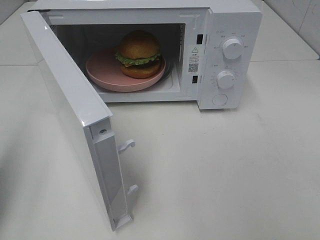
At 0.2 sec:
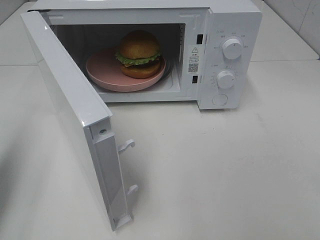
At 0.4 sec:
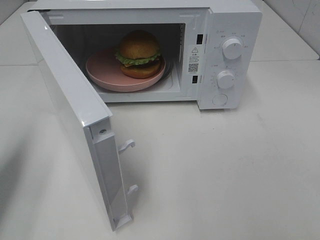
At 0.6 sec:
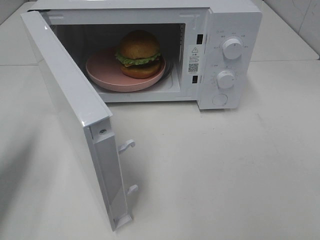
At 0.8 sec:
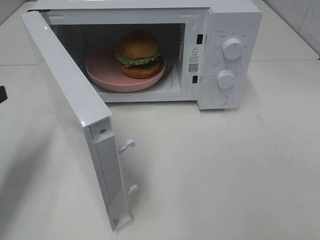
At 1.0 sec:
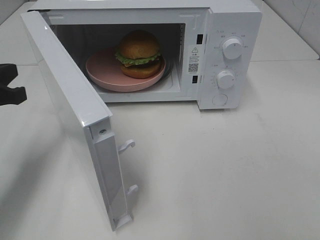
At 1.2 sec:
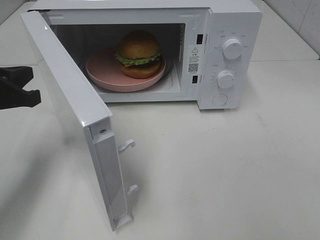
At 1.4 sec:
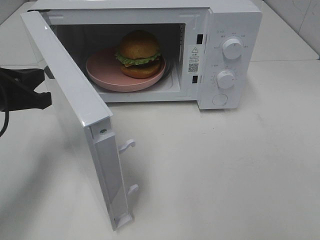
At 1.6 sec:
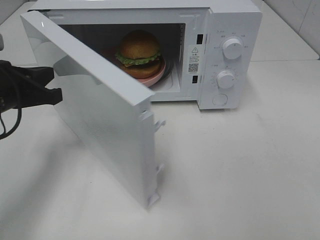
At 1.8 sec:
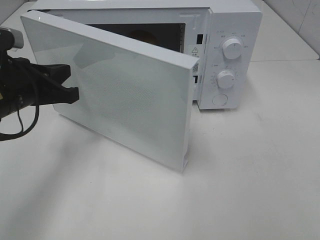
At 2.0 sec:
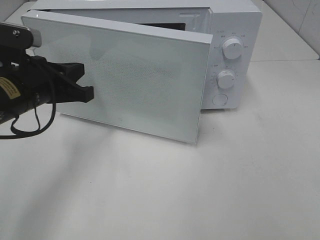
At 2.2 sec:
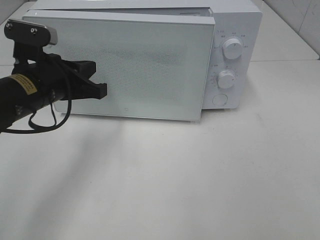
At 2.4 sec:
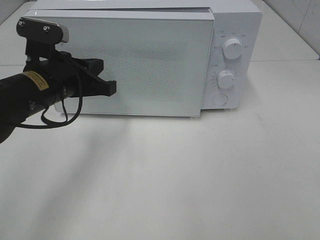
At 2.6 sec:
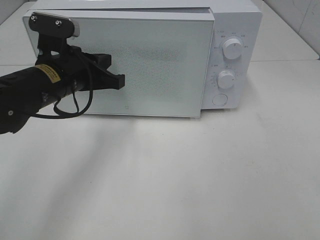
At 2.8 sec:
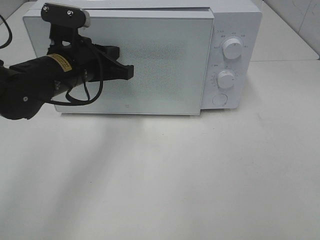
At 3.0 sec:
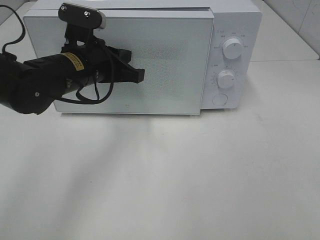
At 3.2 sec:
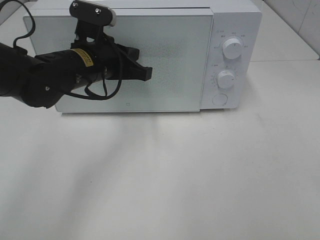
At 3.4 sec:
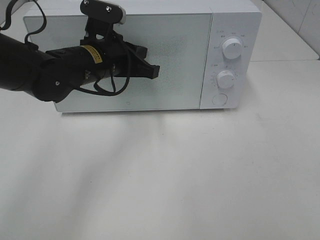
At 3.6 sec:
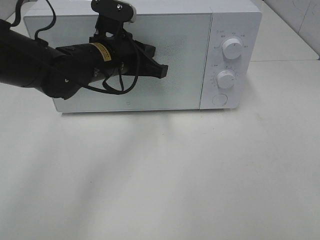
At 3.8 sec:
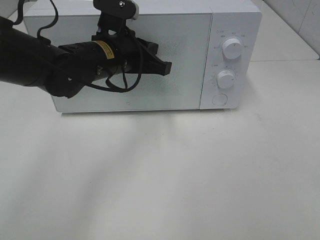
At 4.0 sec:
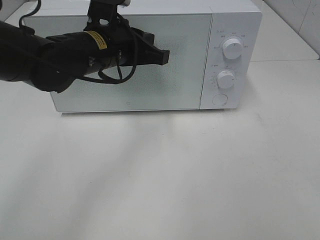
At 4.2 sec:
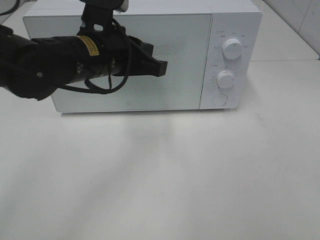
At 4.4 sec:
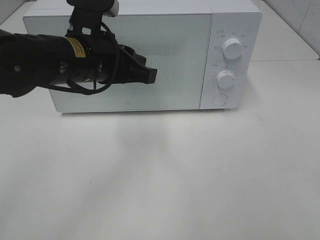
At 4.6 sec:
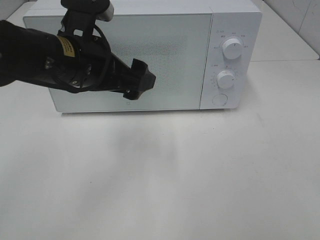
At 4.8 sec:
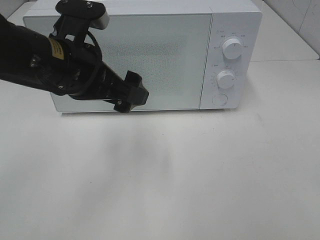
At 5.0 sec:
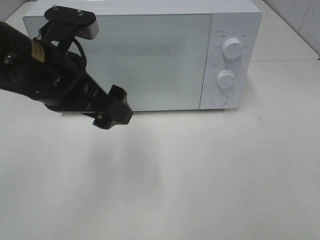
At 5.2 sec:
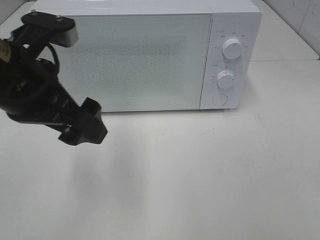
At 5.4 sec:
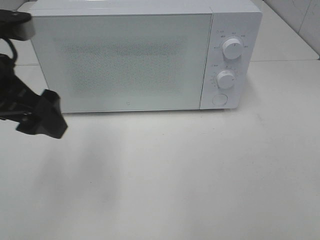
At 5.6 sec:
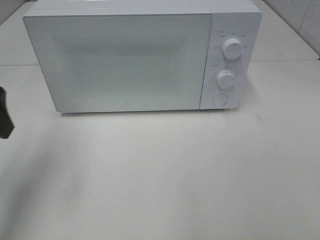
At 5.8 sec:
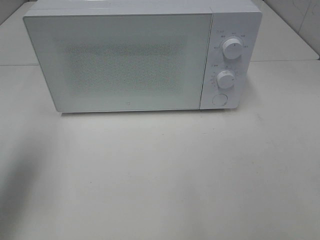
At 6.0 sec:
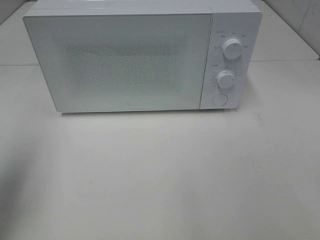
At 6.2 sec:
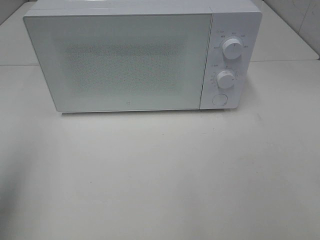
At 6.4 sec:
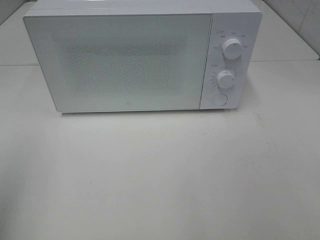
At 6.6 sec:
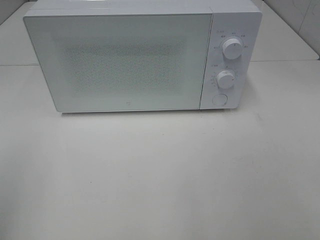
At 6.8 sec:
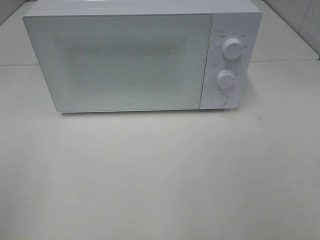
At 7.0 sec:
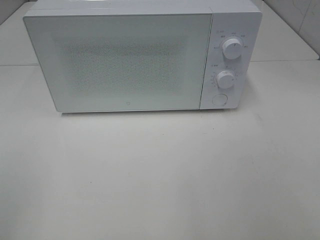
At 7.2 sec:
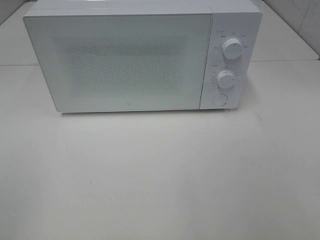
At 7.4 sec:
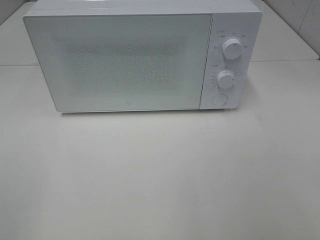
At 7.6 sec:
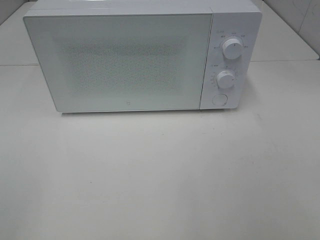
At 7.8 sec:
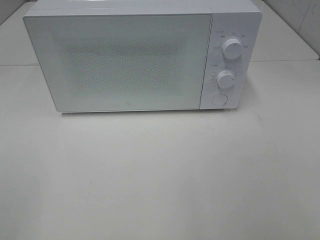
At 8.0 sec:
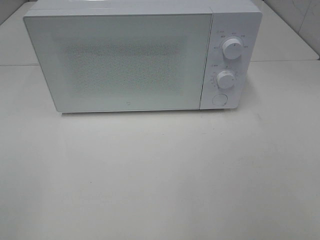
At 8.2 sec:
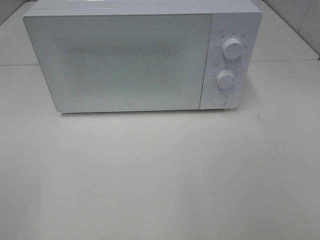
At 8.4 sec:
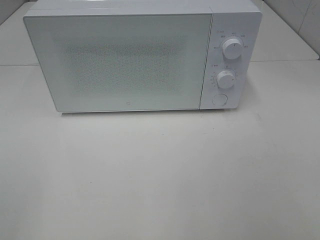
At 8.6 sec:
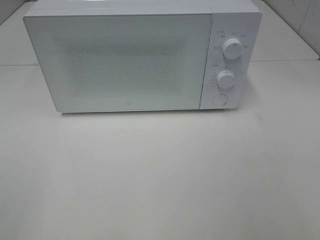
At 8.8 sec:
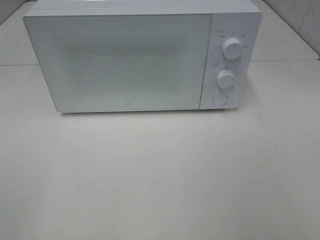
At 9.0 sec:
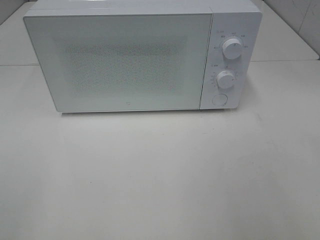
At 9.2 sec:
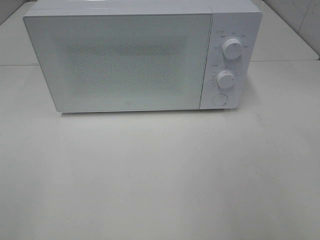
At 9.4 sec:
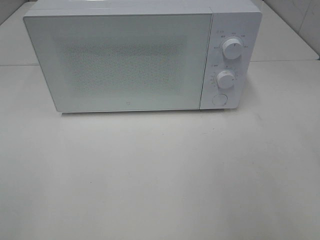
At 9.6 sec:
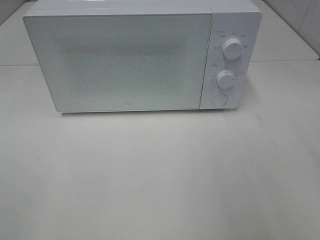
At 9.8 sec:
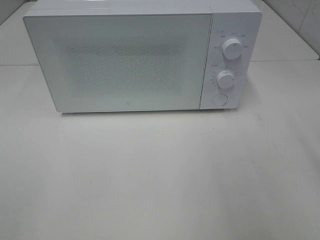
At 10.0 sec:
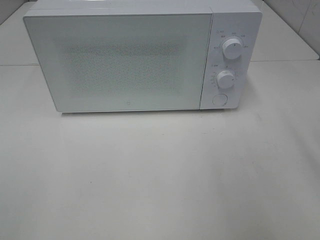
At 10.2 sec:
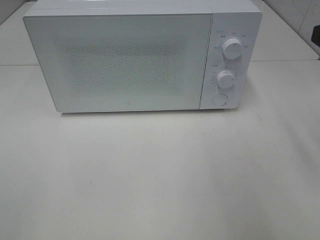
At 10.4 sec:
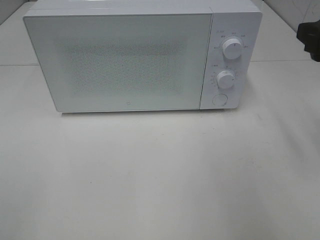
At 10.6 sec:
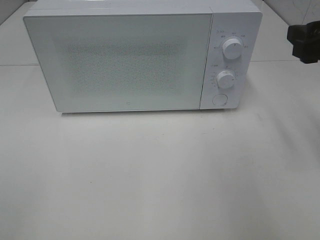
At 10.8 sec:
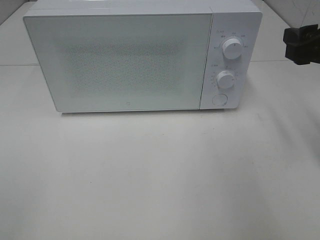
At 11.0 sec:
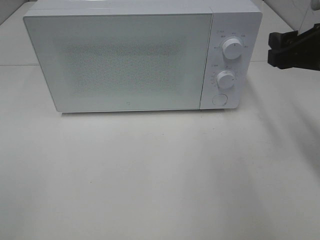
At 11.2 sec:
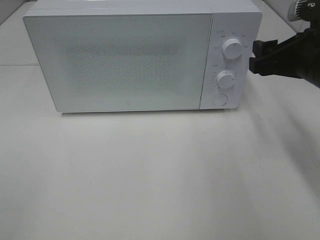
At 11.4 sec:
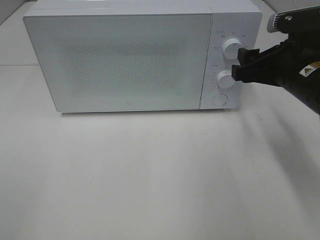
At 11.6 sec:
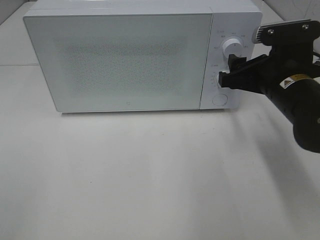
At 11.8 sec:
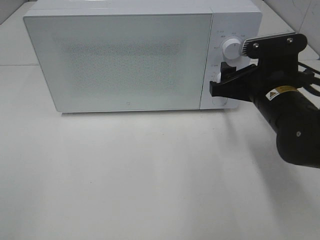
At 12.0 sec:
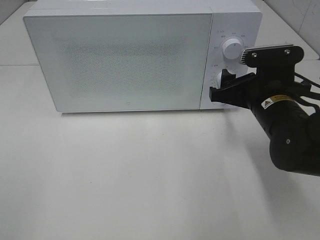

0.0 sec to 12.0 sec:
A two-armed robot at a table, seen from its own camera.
Task of the whole recording: Heat the burger.
Step, 0.0 sec to 4.0 sec: Left hand: close the microwave door.
0.0 sec to 1.6 sec: The left gripper travels forward, to the right and downward by about 15 cm.
1.6 sec to 3.0 sec: The left gripper goes roughly 15 cm to the right and forward.
3.0 sec to 4.4 sec: The left gripper moves roughly 5 cm.
4.4 sec to 6.0 sec: The left gripper heads to the left and backward, covering approximately 25 cm, and opens its fingers.
6.0 sec to 7.6 sec: The left gripper is displaced backward by some 20 cm.
9.0 sec to 10.4 sec: The right gripper moves forward, approximately 15 cm.
10.4 sec to 12.0 sec: The right gripper moves downward, to the left and forward, about 15 cm.

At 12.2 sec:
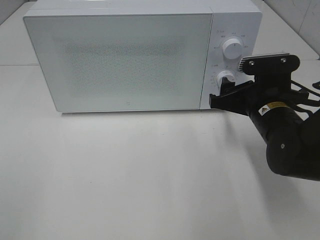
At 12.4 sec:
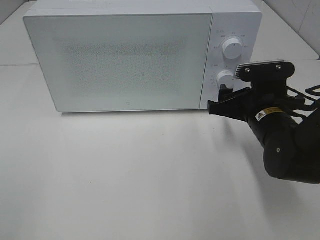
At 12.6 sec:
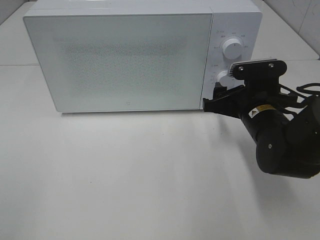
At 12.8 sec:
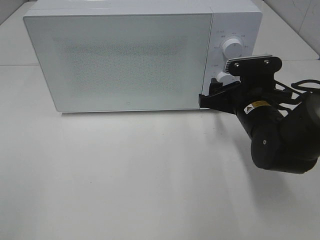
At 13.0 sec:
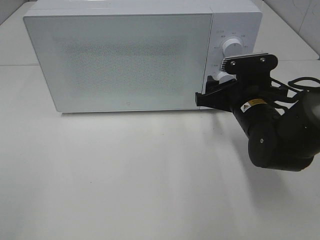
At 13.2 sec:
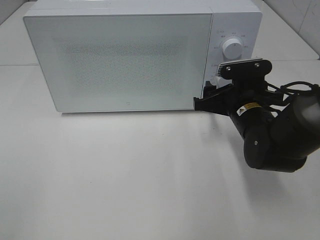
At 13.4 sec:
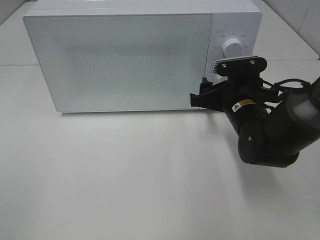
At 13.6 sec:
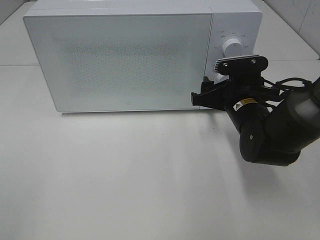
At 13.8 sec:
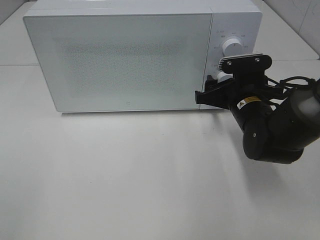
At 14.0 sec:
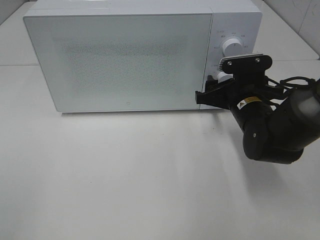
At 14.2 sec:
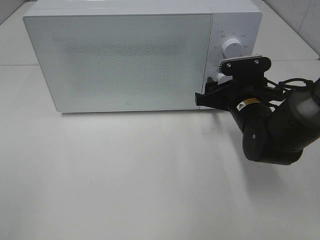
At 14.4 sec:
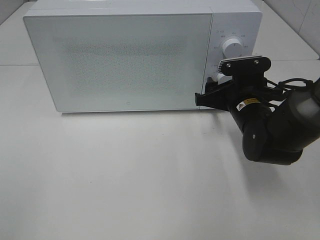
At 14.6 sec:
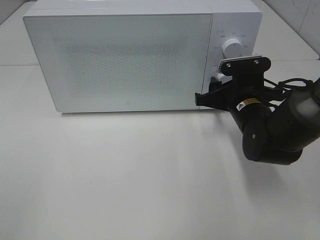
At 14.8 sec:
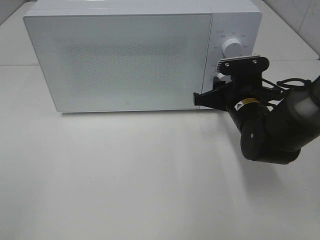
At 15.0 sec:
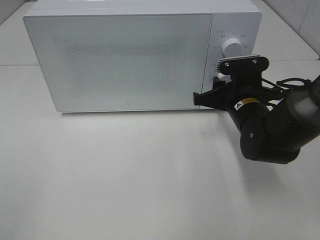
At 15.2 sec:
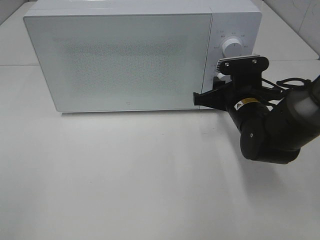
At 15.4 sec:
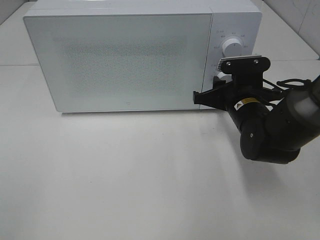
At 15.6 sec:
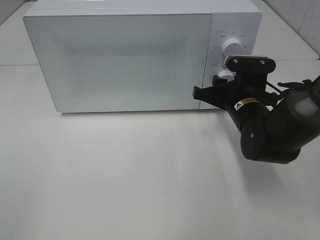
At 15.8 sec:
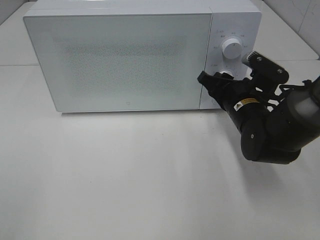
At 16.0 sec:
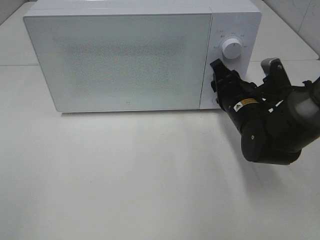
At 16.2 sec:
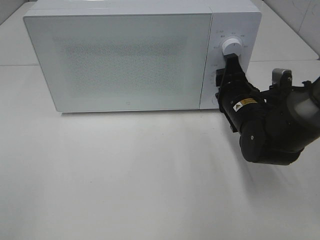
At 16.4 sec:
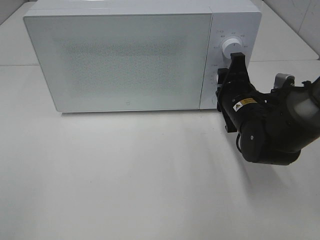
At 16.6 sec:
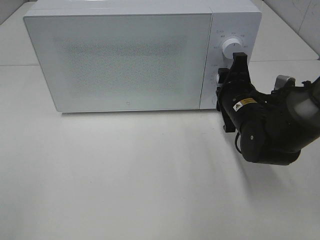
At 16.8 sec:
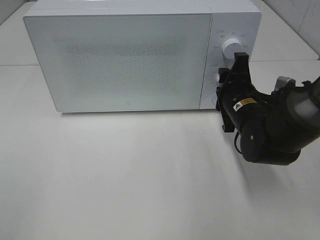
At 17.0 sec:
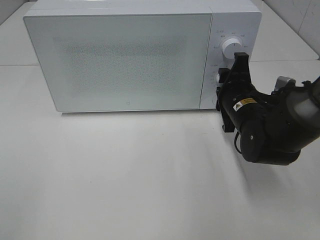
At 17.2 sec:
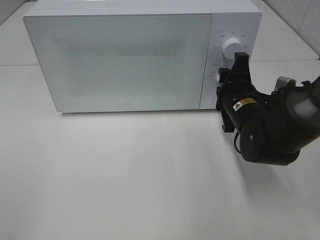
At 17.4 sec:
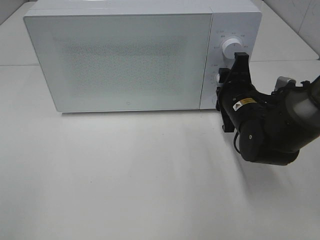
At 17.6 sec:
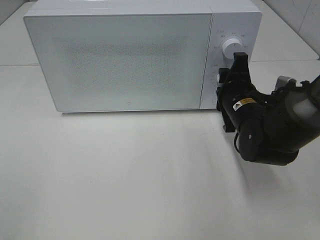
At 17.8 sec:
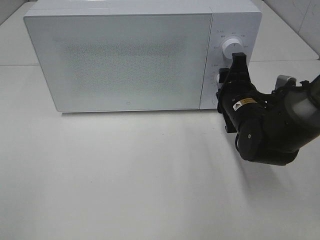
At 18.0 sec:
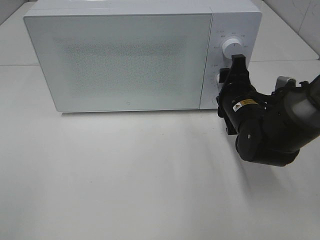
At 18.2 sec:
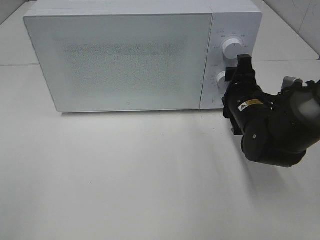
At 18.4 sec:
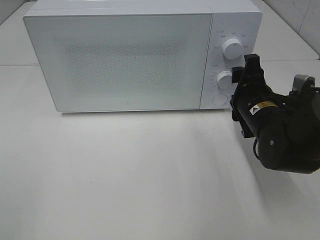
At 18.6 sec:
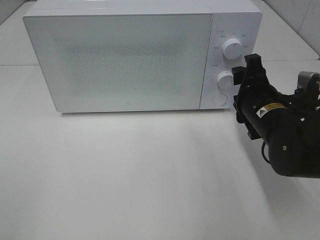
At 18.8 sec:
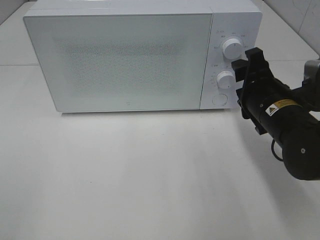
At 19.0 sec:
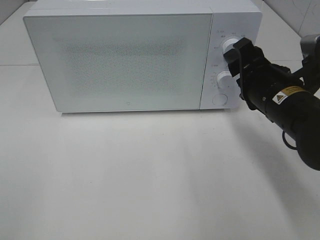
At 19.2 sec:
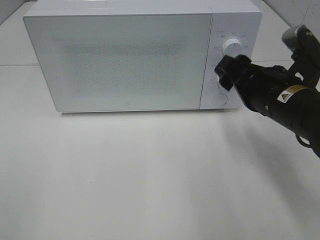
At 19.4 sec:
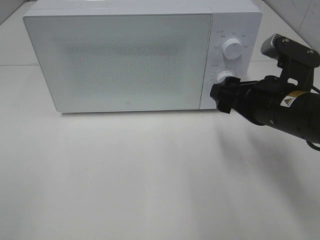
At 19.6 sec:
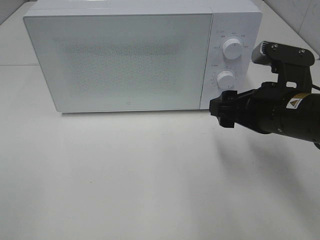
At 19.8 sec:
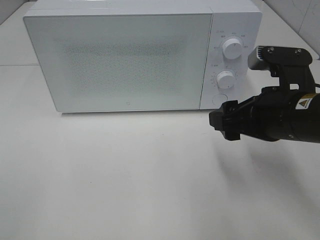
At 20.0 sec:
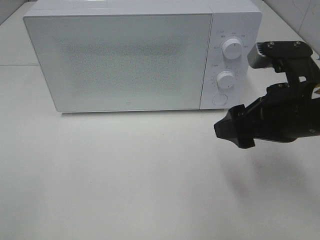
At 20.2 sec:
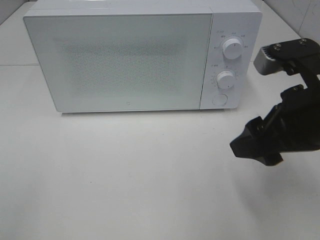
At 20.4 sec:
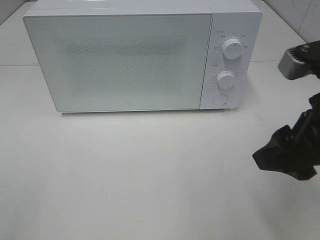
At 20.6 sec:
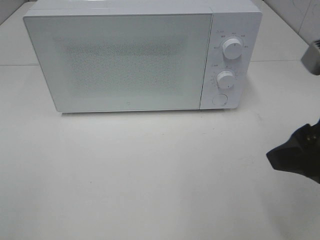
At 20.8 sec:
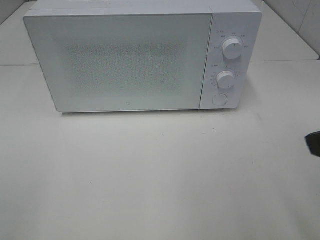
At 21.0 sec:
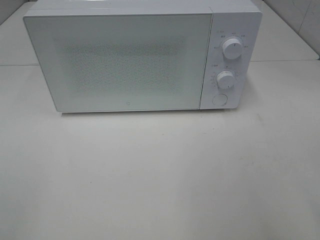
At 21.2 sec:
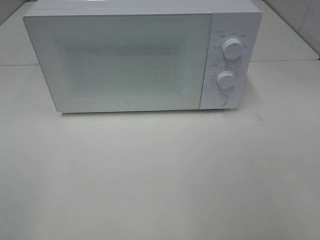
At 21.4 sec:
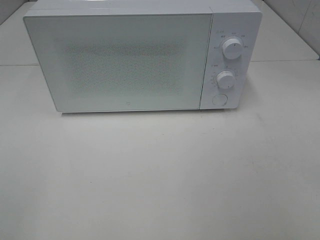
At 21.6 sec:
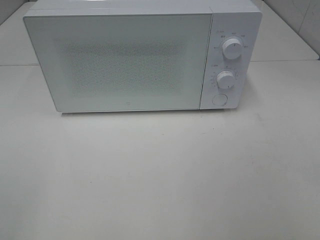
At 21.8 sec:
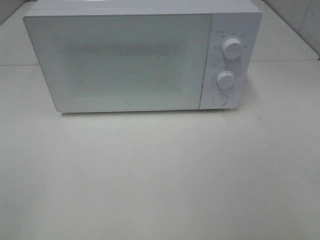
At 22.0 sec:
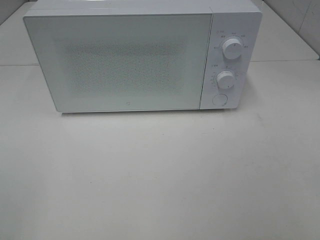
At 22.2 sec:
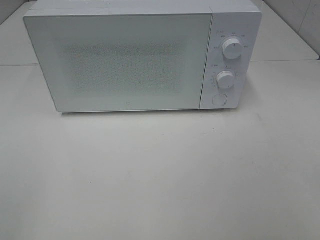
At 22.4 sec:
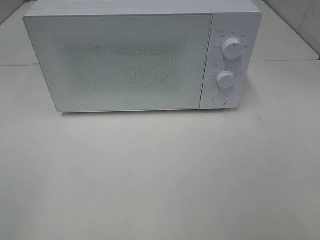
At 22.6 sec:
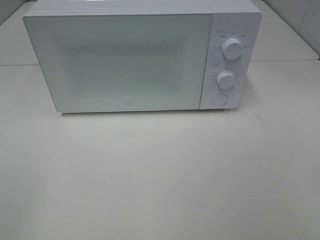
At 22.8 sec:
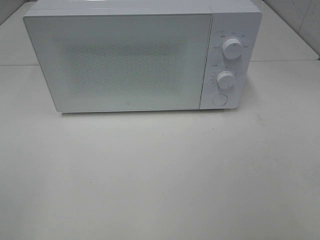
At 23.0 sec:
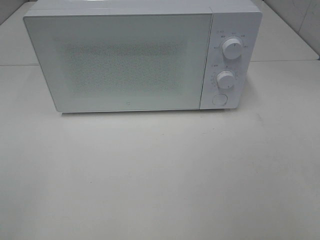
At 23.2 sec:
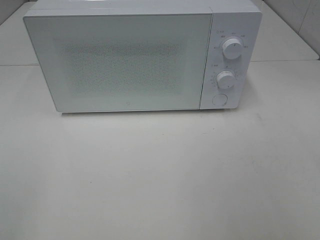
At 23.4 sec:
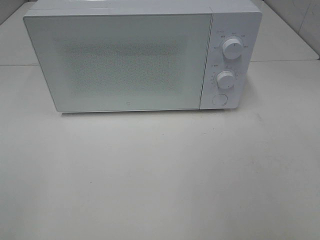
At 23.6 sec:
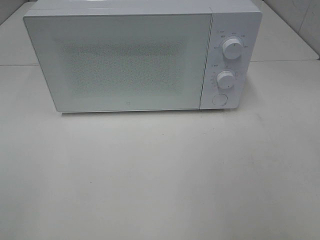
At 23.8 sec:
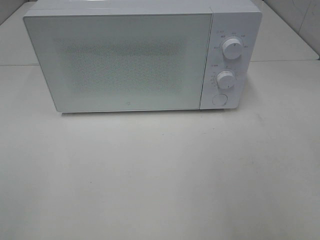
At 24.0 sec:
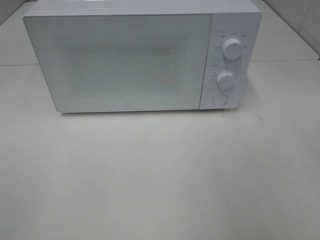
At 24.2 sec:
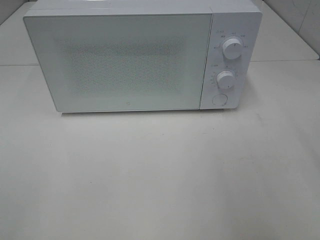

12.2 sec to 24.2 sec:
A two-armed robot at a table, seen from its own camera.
Task of the whole recording: Heat the burger.
Step, 12.2 sec to 18.0 sec: Right hand: twist timer button.
12.2 sec to 13.8 sec: The right gripper shifts by about 5 cm.
13.8 sec to 15.2 sec: The right gripper closes.
16.6 sec to 18.2 sec: The grippers stay close to where they were, moving slightly.
18.2 sec to 19.8 sec: The right gripper goes some 15 cm backward and upward.
19.8 sec to 21.2 sec: The right gripper goes approximately 20 cm backward, upward and to the right.
